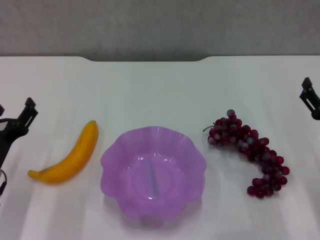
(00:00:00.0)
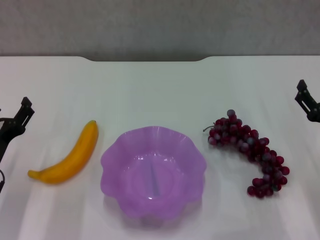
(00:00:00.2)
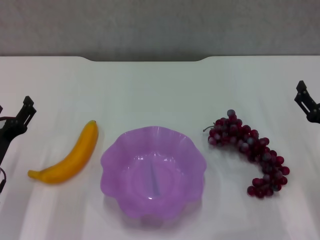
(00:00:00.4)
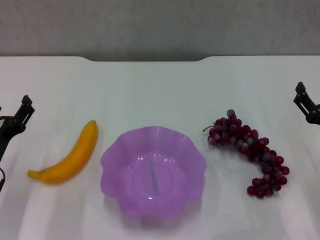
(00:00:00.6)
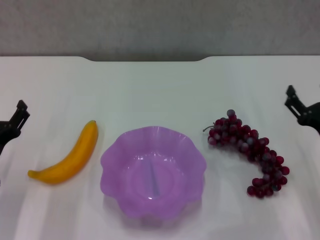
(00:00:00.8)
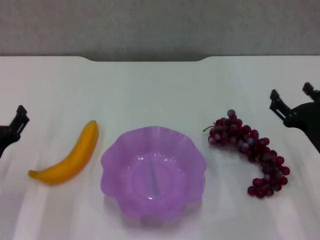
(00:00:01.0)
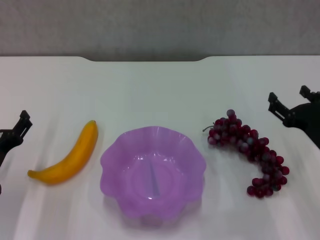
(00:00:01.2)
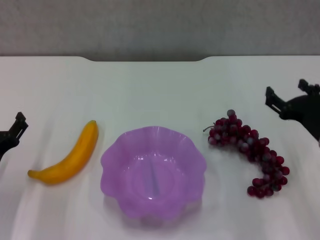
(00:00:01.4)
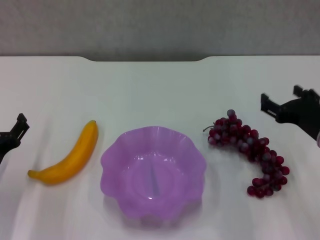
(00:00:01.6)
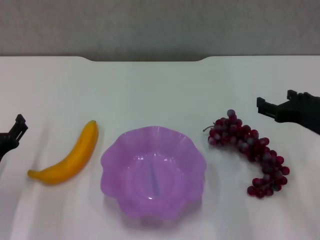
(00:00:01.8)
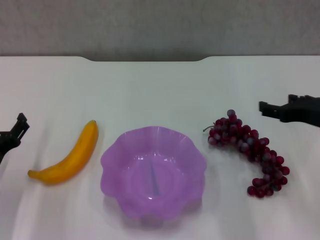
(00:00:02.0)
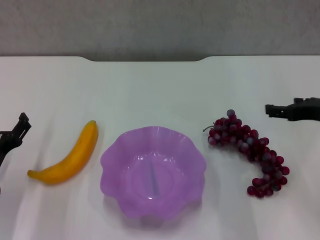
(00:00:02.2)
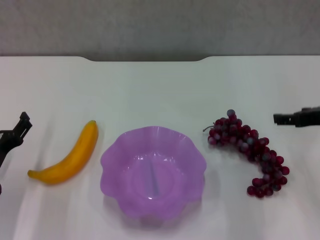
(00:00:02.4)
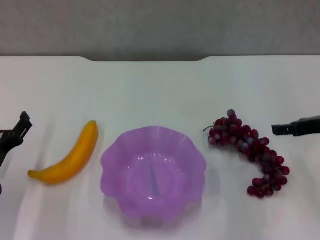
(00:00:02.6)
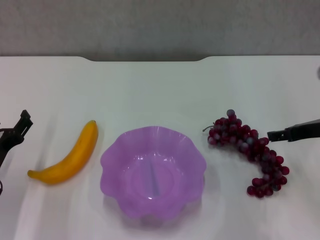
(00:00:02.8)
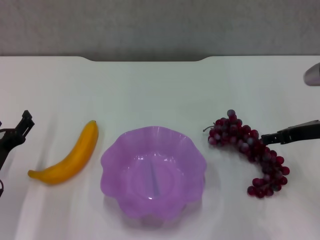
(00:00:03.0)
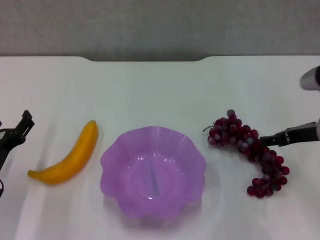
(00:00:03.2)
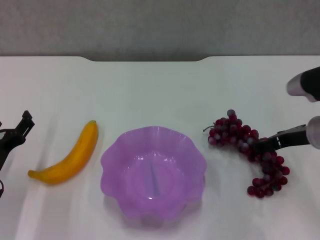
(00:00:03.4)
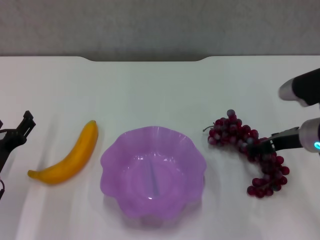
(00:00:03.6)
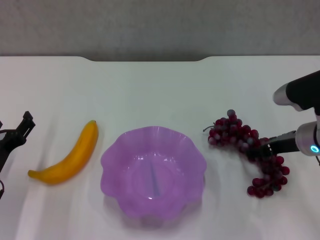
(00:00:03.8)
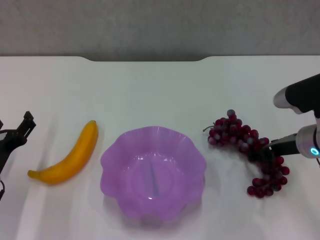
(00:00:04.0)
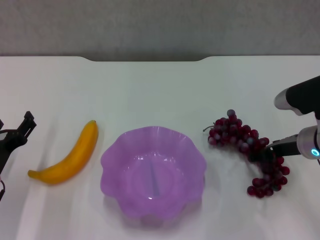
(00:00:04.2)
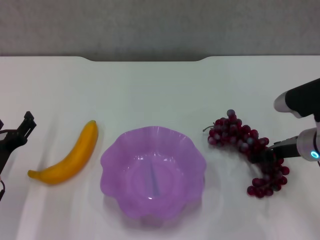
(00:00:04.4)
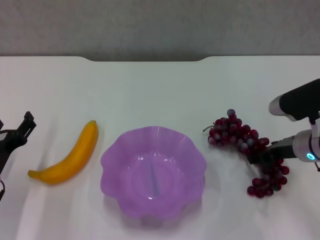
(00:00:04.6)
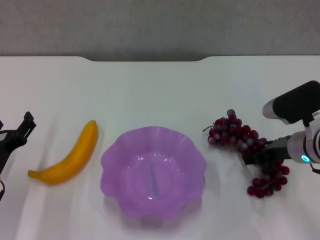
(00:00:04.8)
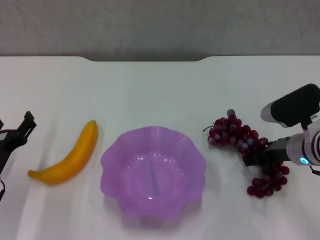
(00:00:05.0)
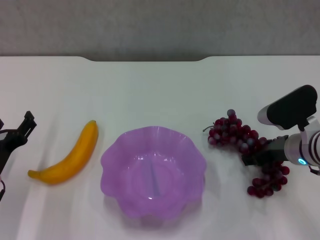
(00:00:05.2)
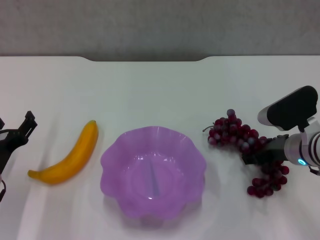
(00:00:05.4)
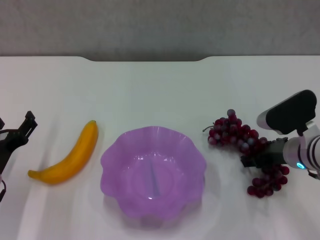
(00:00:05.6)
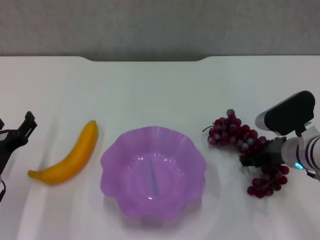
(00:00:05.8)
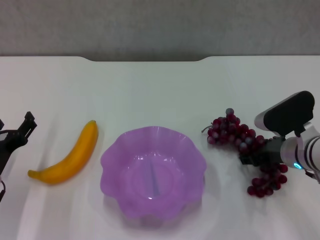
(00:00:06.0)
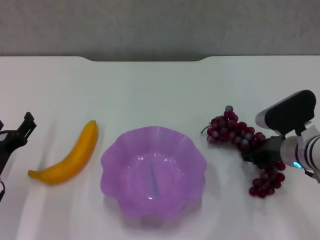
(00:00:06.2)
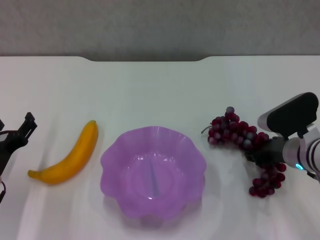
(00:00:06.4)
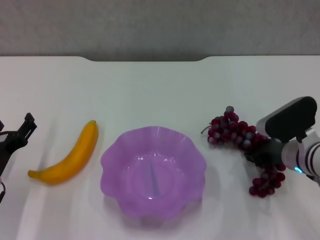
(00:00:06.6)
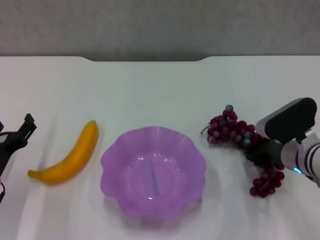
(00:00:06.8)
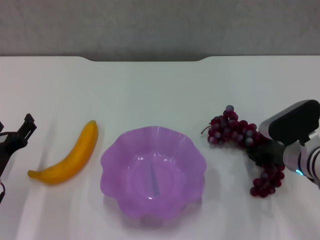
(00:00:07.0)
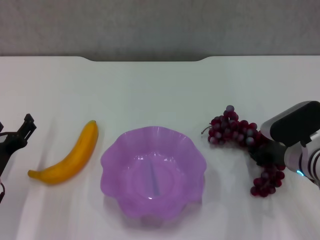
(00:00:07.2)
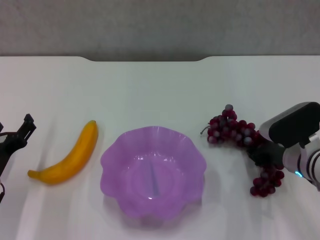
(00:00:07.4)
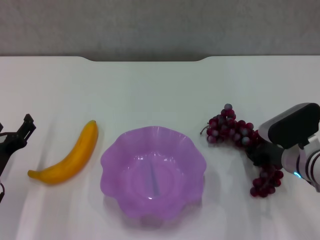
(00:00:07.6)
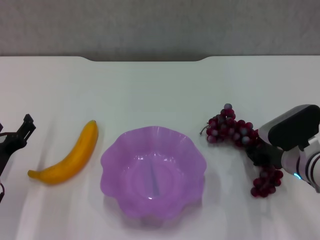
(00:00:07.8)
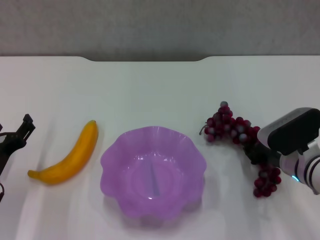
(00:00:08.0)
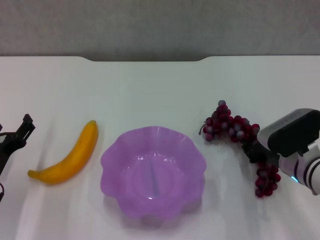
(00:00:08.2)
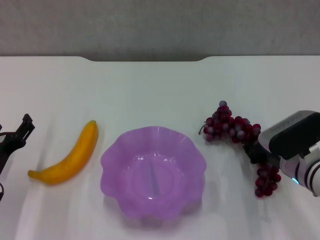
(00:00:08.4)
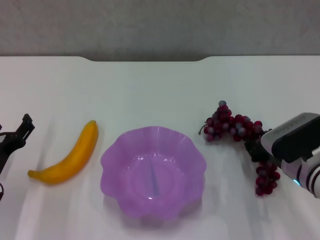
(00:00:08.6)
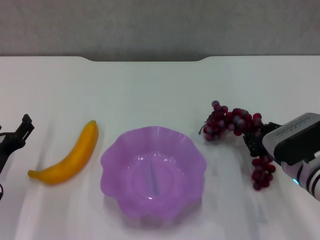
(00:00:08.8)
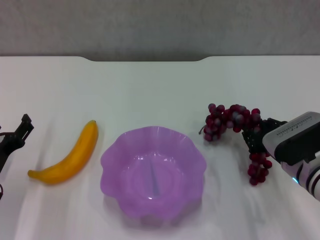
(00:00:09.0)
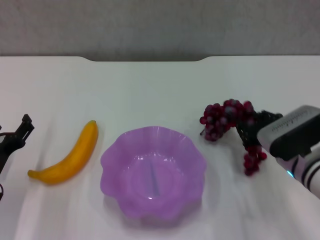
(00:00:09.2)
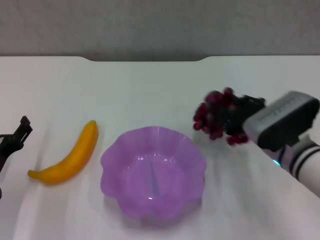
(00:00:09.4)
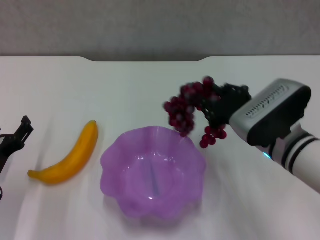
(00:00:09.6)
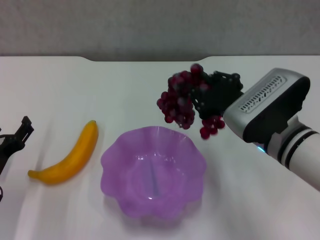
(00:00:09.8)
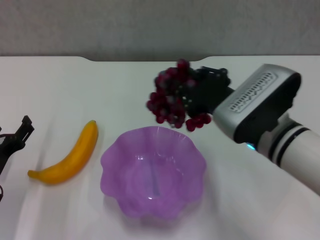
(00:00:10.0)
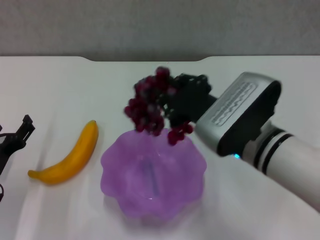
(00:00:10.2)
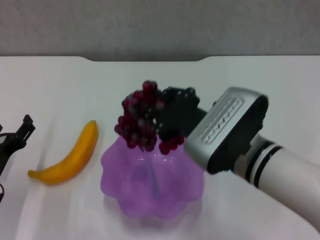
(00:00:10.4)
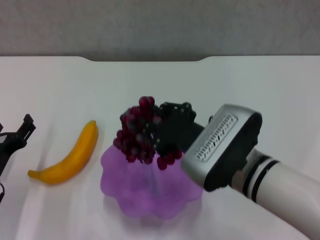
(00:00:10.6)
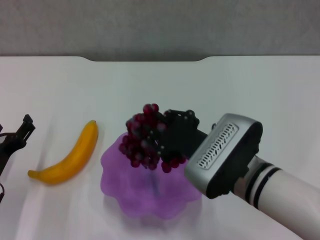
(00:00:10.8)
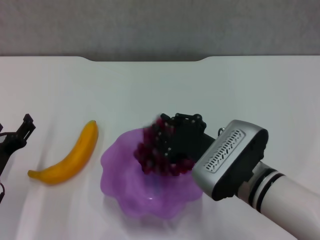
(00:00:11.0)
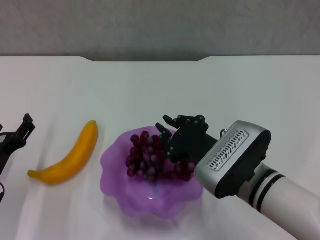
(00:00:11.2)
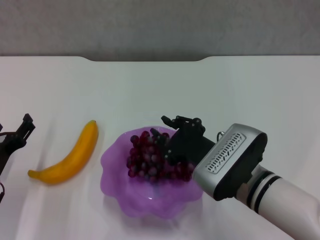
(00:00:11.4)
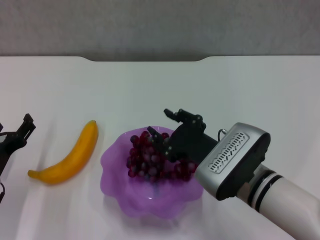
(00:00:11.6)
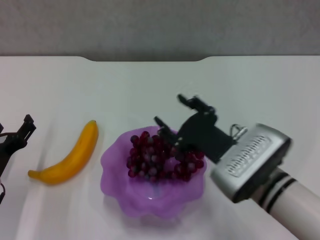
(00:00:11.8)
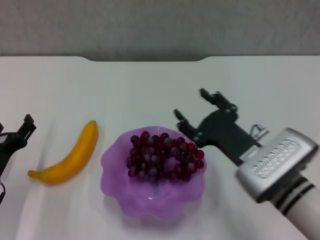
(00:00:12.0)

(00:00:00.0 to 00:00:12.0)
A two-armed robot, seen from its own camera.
Step, 00:00:00.0 - 00:00:06.6: Grasp the grape with right gripper.
Step, 00:00:06.8 - 00:00:11.4: Place the grape in the purple plate with right gripper.
00:00:00.0 - 00:00:01.6: The right gripper shifts approximately 5 cm upward.
00:00:01.6 - 00:00:03.0: The right gripper shifts roughly 5 cm forward.
00:00:03.0 - 00:00:04.4: The right gripper changes place by approximately 5 cm.
00:00:04.4 - 00:00:06.0: The grippers move only a little.
00:00:06.0 - 00:00:07.6: The right gripper closes.
00:00:07.6 - 00:00:09.0: The grippers make only small movements.
00:00:09.0 - 00:00:10.4: The right gripper is displaced to the left and upward by approximately 15 cm.
00:00:10.4 - 00:00:12.0: The right gripper is displaced downward and to the right by roughly 10 cm, and opens its fingers.

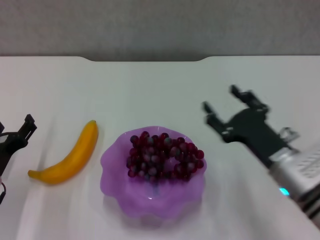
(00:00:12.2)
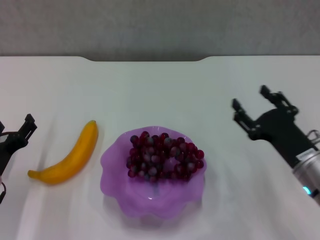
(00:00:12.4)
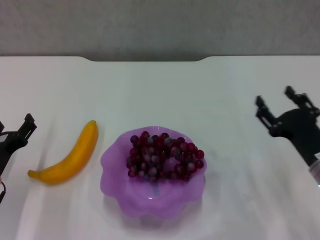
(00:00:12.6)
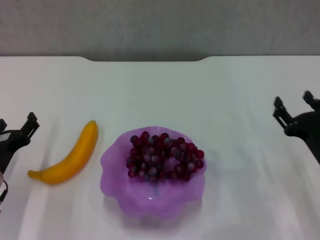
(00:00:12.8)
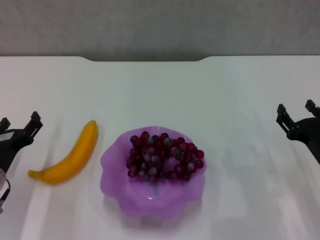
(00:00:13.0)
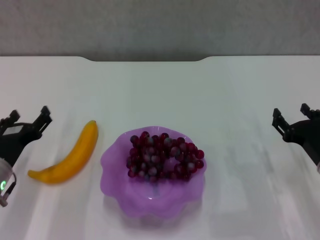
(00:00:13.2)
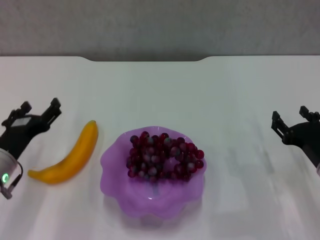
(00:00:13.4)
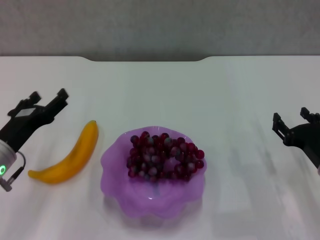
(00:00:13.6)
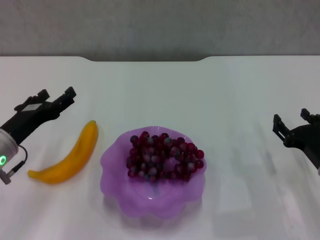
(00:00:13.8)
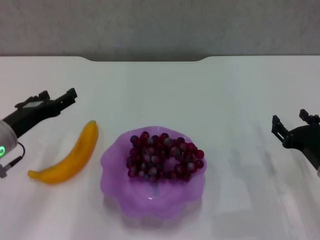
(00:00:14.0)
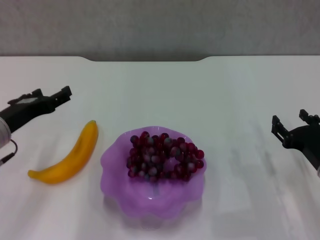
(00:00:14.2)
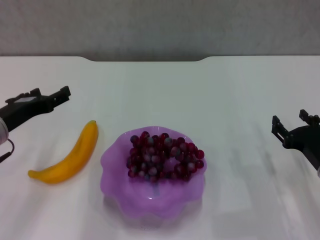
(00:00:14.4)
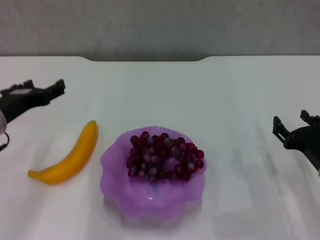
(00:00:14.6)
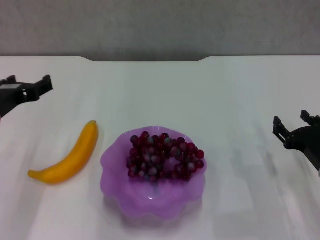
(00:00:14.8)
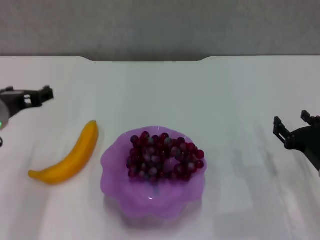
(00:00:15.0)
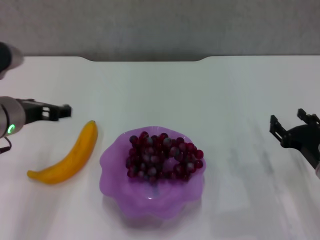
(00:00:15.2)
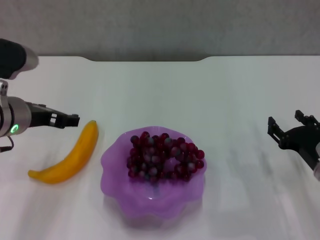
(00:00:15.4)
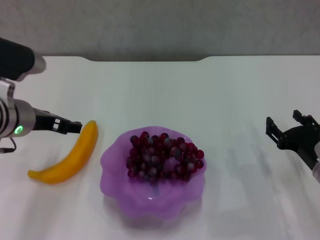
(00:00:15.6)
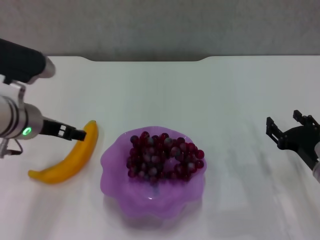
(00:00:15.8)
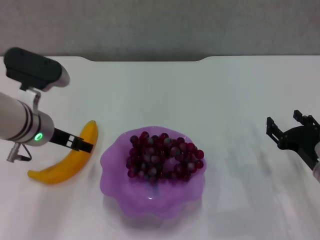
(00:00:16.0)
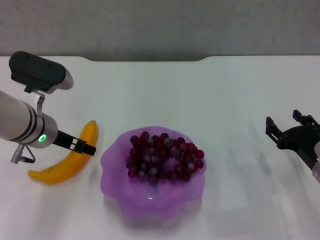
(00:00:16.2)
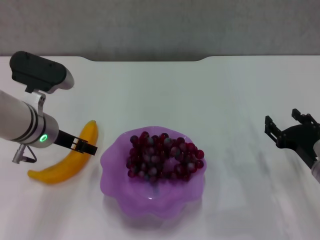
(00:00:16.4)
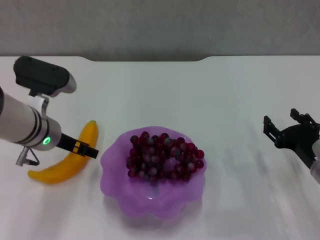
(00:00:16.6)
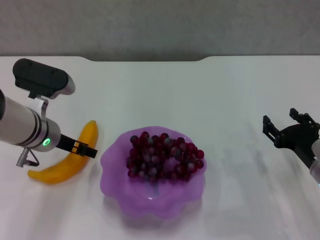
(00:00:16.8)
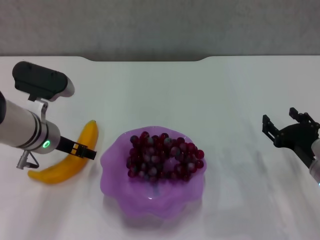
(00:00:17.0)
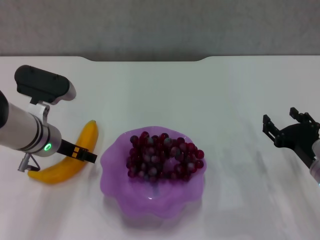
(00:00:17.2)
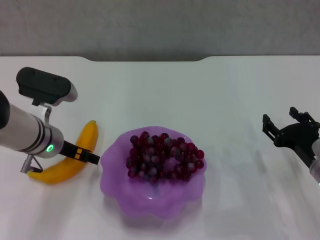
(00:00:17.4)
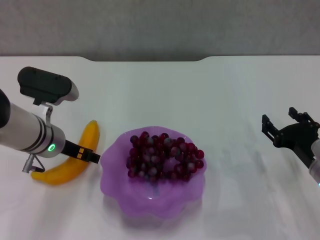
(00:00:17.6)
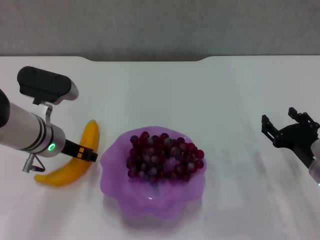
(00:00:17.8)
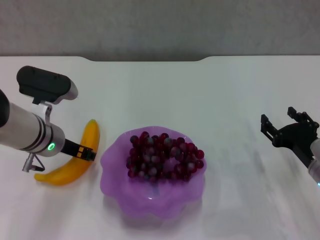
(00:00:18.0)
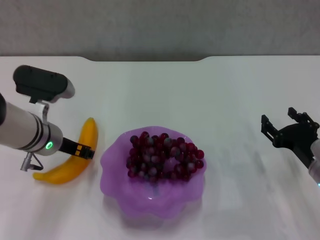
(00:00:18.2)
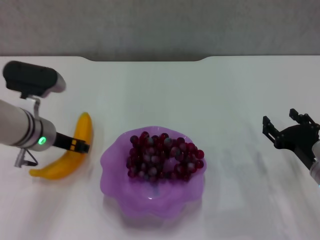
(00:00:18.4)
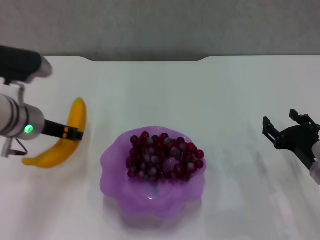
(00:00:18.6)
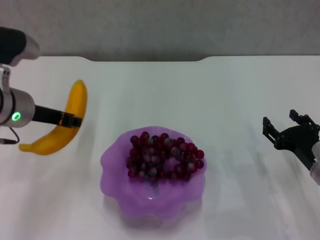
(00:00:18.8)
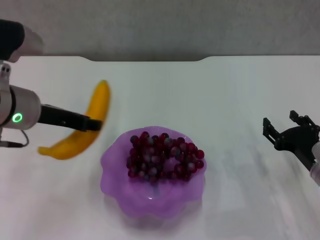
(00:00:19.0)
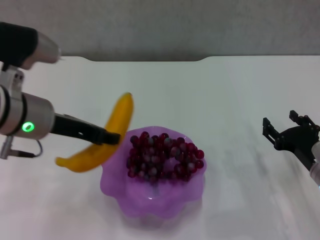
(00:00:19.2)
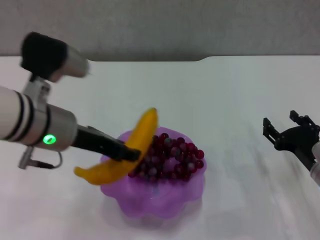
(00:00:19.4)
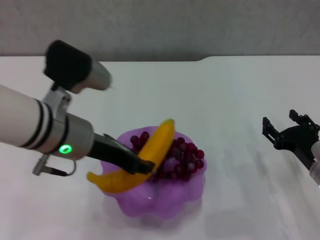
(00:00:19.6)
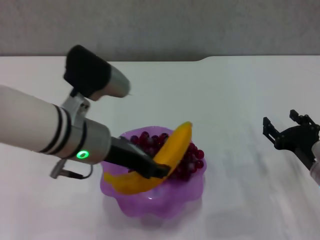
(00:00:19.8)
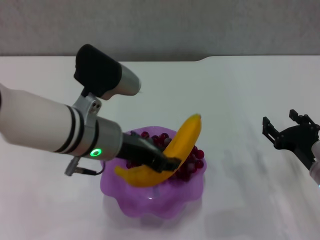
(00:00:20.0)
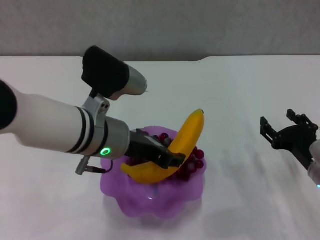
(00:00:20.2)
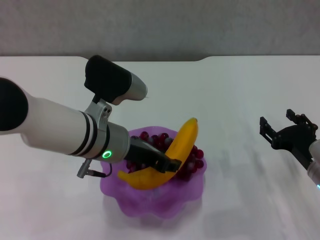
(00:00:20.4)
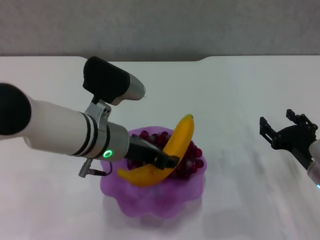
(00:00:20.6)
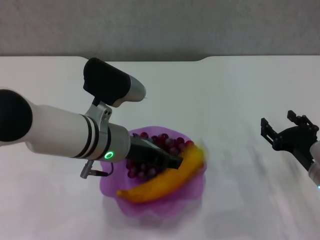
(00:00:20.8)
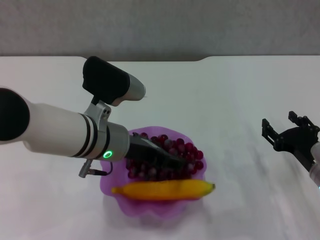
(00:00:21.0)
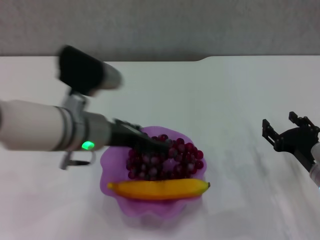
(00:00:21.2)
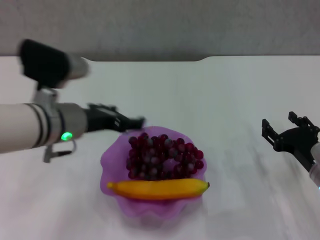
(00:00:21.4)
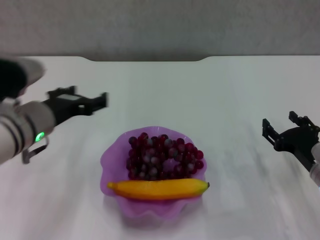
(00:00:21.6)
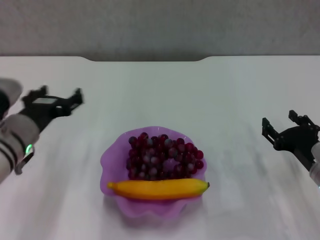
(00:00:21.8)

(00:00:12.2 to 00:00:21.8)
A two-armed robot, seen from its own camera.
Step, 00:00:12.2 - 00:00:17.8: Grasp the banana with left gripper.
Step, 00:00:18.0 - 00:00:21.0: Place the banana in the purple plate with left gripper.
00:00:12.2 - 00:00:13.8: The right gripper heads to the right, covering some 10 cm. The left gripper is displaced upward by approximately 5 cm.
00:00:13.8 - 00:00:15.4: The left gripper moves upward, some 10 cm.
00:00:15.4 - 00:00:17.0: The left gripper goes roughly 5 cm downward.
00:00:17.0 - 00:00:18.6: The left gripper closes its fingers.
00:00:18.6 - 00:00:20.2: The left gripper heads to the right and backward, covering approximately 15 cm.
00:00:20.2 - 00:00:21.8: The left gripper moves to the left and downward, roughly 15 cm, and opens.
